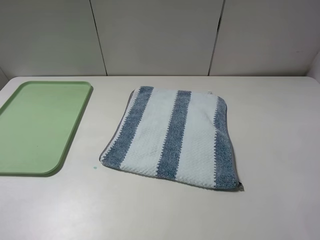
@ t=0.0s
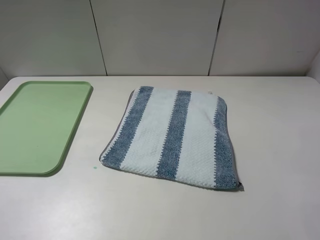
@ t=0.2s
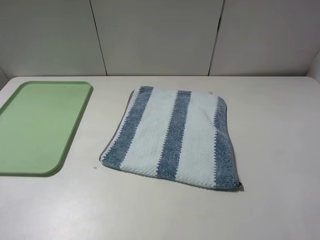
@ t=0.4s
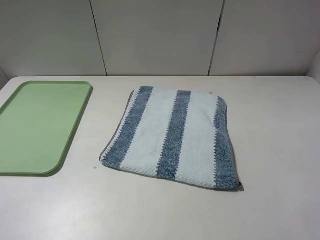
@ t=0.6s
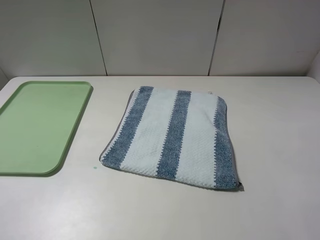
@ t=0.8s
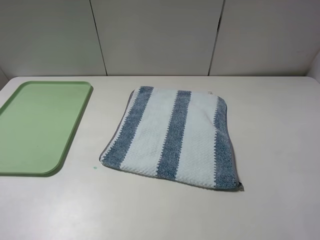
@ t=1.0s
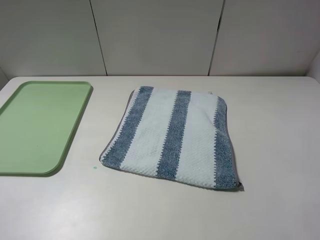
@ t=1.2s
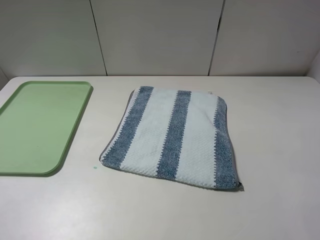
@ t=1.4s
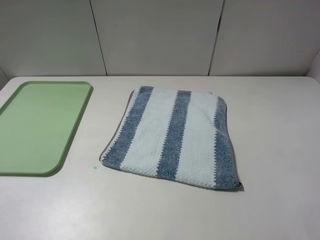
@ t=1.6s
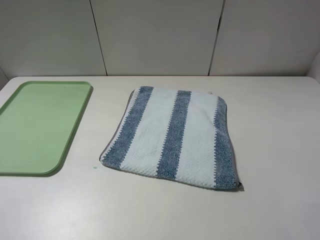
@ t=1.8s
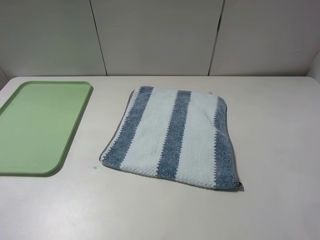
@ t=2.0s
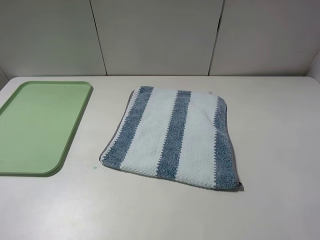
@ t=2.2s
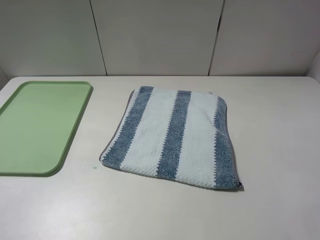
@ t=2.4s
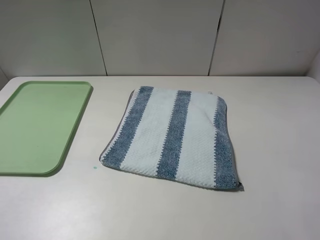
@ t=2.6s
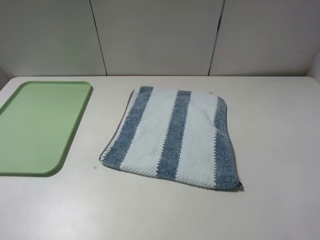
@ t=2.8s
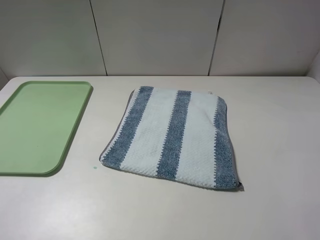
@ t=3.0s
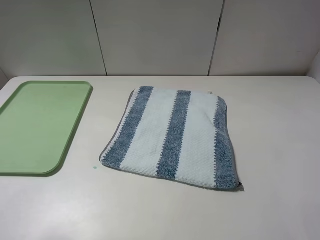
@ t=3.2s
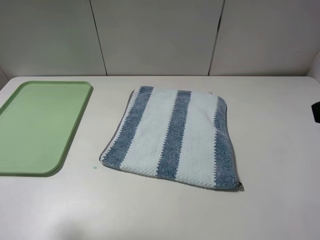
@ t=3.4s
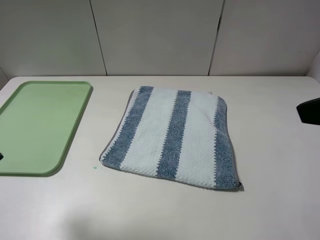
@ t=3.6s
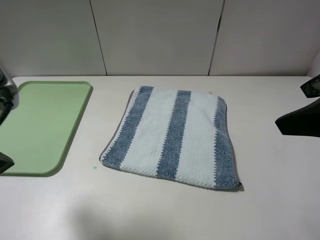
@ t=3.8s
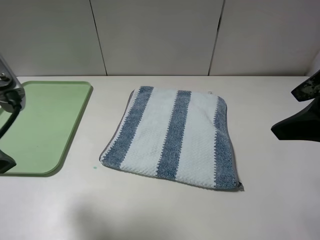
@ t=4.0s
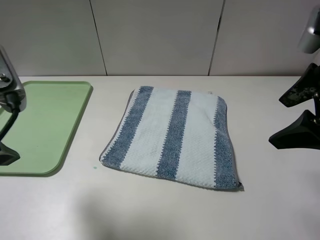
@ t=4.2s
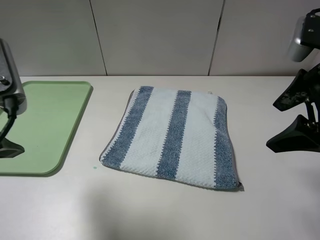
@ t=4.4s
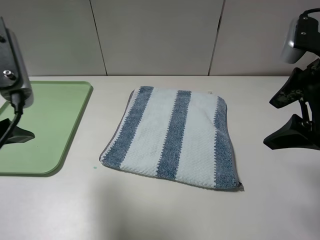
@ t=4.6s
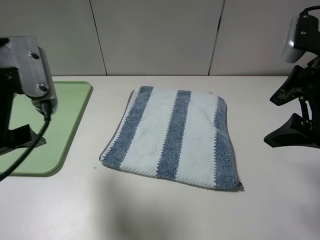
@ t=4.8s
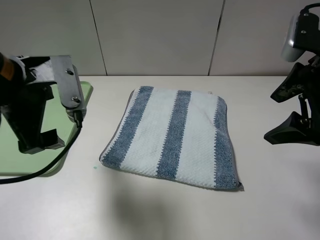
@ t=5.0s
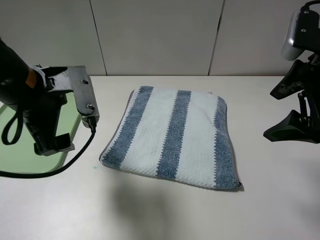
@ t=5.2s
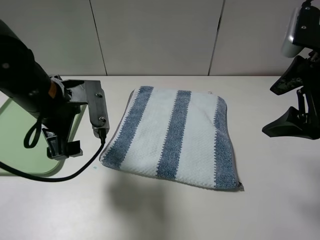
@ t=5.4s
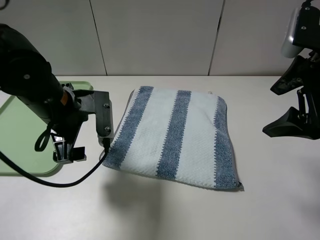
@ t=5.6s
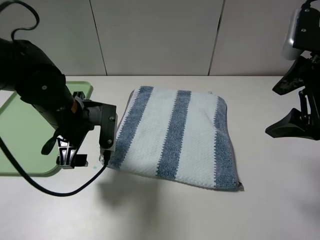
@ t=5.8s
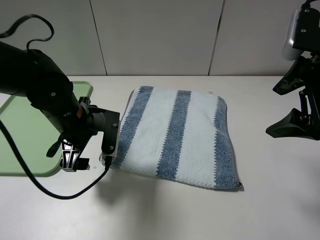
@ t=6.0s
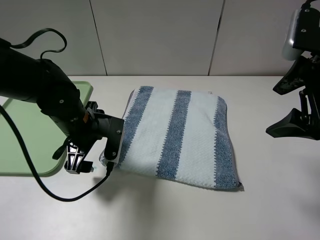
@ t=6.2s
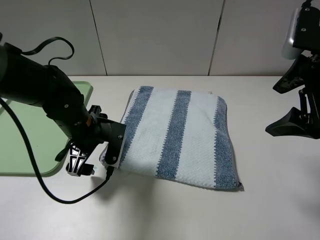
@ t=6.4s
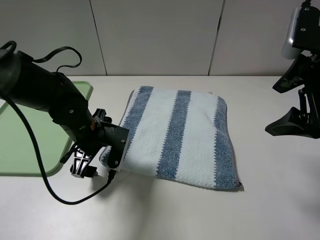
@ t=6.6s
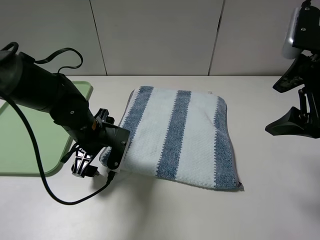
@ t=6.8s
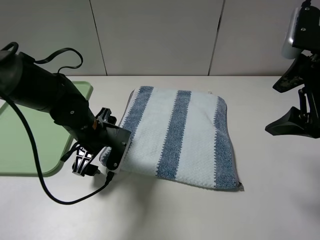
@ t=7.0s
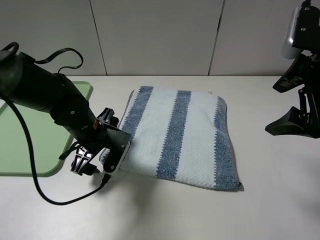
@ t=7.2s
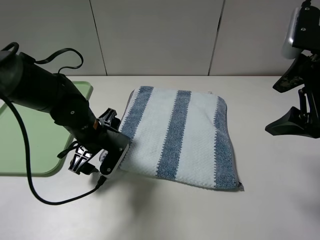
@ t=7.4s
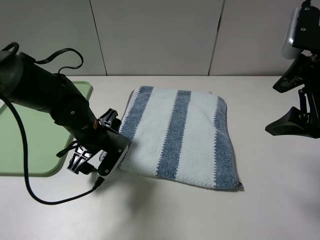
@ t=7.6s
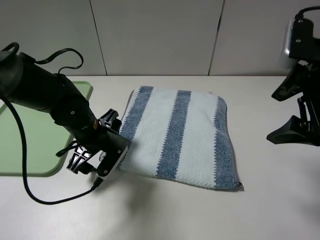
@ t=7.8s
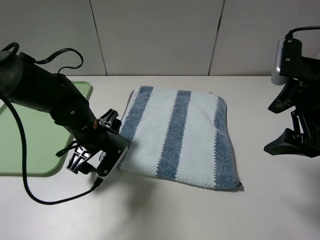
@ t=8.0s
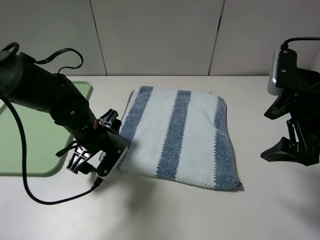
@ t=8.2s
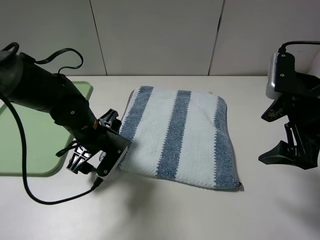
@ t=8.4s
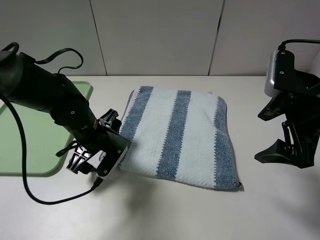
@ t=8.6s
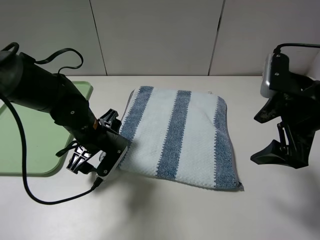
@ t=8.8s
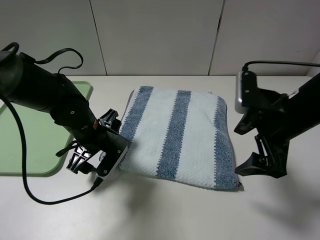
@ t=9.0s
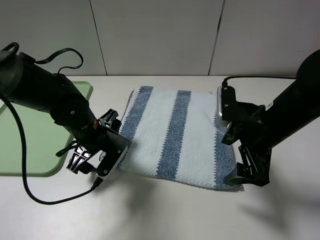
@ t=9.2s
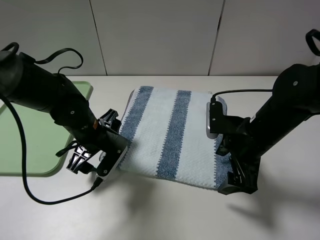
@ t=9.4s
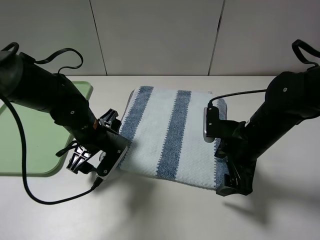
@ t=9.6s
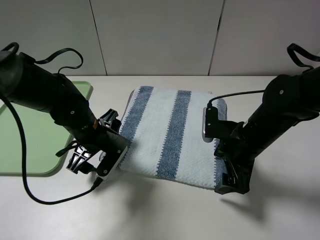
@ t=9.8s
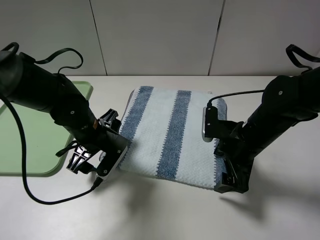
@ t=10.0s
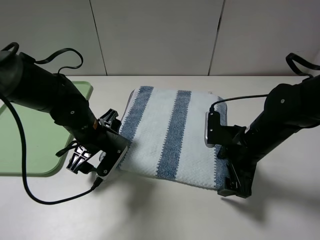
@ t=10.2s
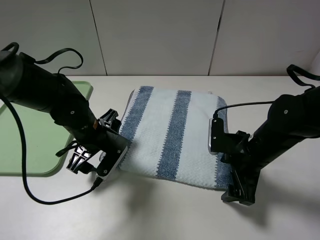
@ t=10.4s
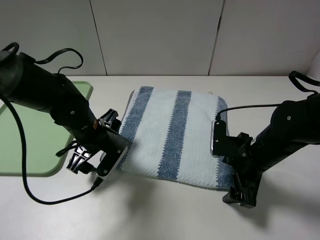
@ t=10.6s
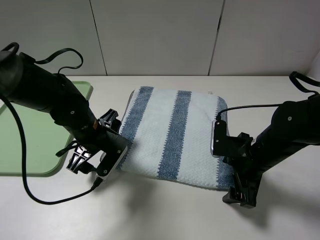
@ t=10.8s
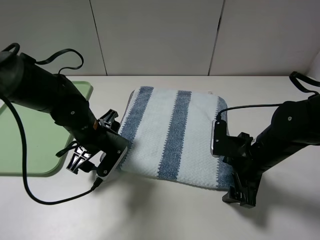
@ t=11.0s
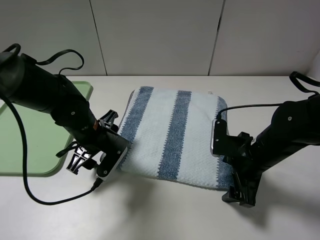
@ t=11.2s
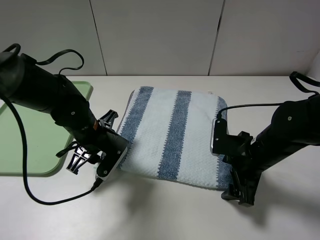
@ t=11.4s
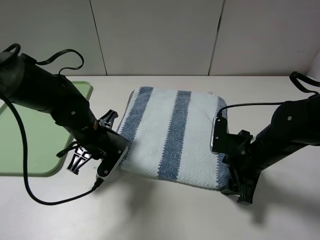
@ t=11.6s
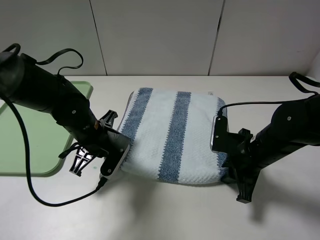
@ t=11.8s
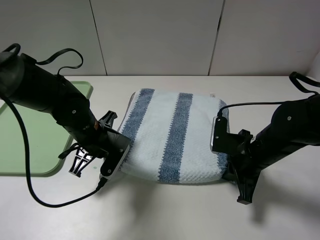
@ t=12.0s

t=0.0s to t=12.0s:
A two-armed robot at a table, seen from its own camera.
t=0.0s to t=1.6s: Neither gripper changes place.
t=3.0s to t=4.4s: The right gripper is displaced forward by some 15 cm. The left gripper shifts roughly 10 cm forward and to the right.
t=4.4s to t=6.0s: The left gripper travels downward, forward and to the right by roughly 20 cm.
t=7.6s to t=9.0s: The right gripper moves downward, some 10 cm.
t=9.0s to t=10.4s: The right gripper shifts about 10 cm downward.
t=10.4s to t=12.0s: The left gripper closes its fingers. The right gripper closes its fingers.

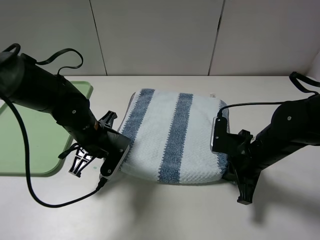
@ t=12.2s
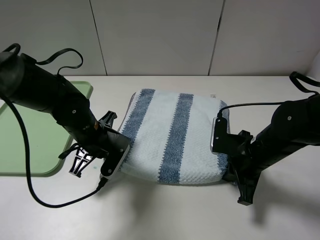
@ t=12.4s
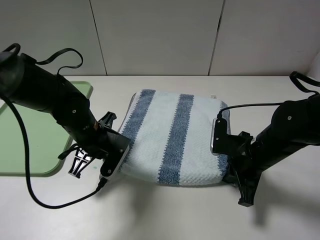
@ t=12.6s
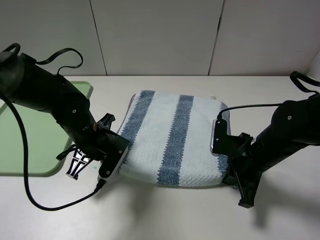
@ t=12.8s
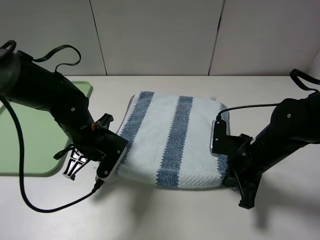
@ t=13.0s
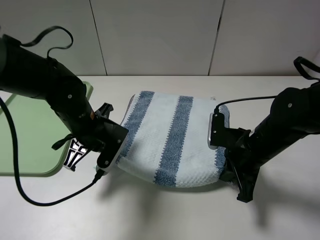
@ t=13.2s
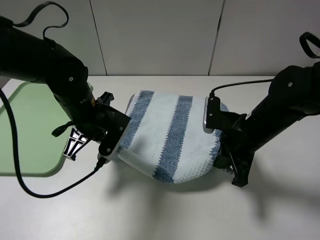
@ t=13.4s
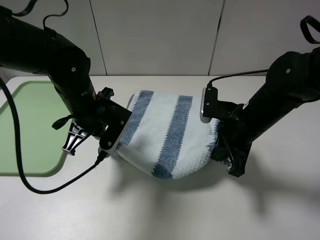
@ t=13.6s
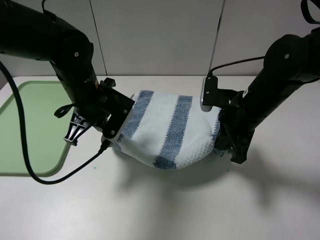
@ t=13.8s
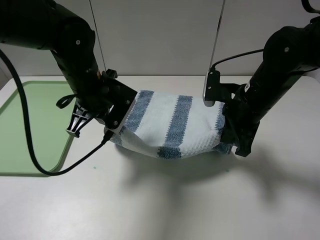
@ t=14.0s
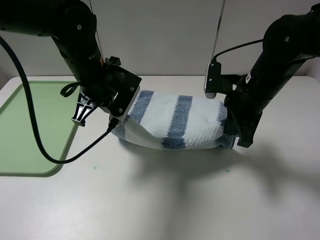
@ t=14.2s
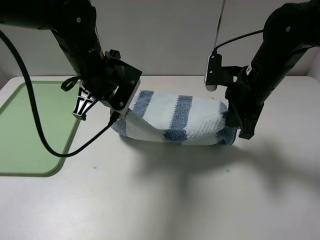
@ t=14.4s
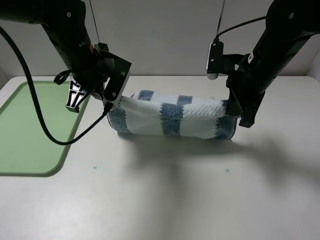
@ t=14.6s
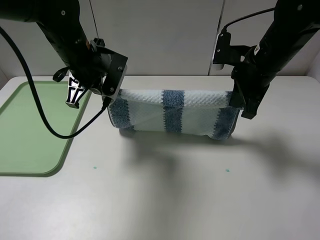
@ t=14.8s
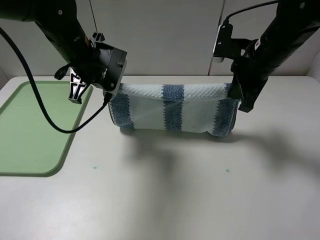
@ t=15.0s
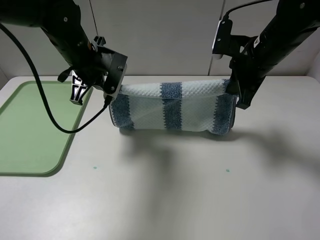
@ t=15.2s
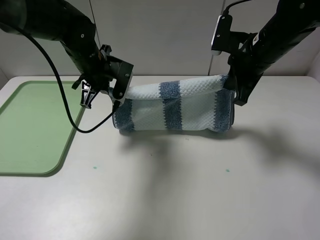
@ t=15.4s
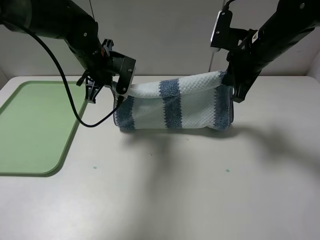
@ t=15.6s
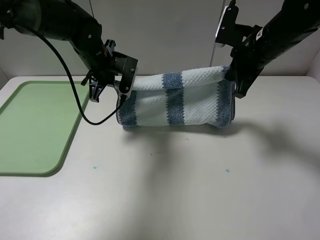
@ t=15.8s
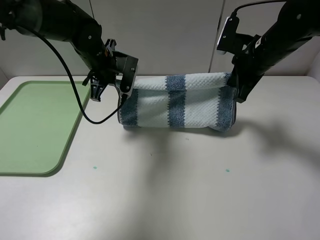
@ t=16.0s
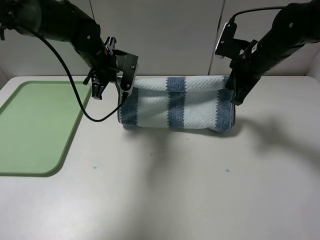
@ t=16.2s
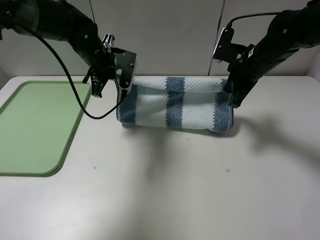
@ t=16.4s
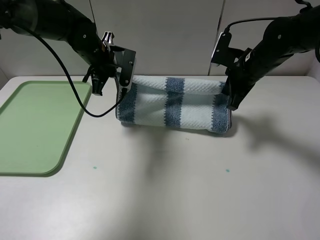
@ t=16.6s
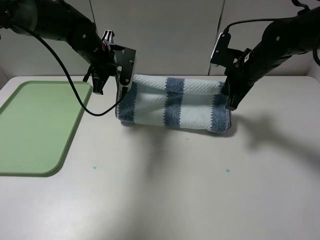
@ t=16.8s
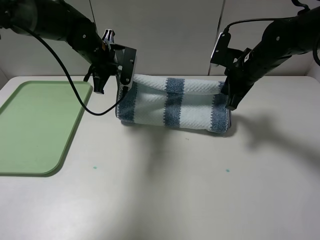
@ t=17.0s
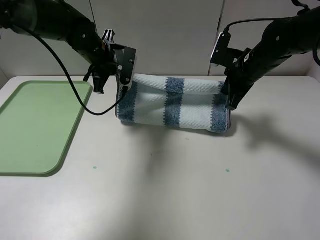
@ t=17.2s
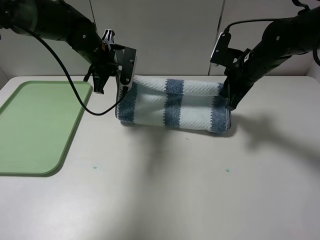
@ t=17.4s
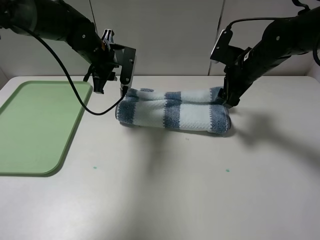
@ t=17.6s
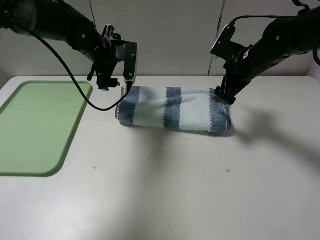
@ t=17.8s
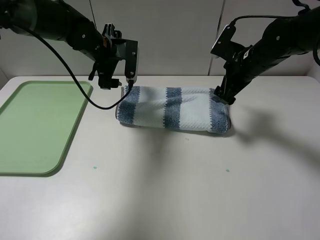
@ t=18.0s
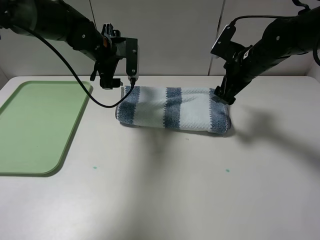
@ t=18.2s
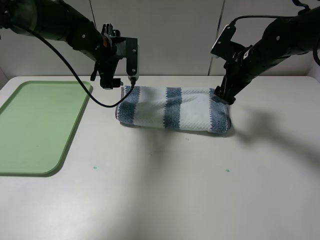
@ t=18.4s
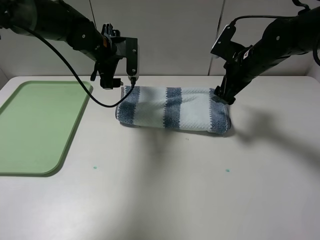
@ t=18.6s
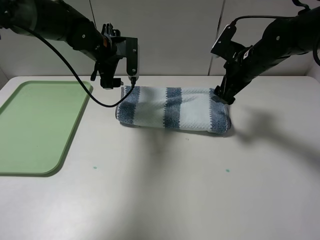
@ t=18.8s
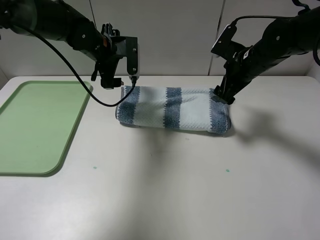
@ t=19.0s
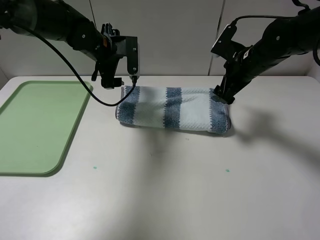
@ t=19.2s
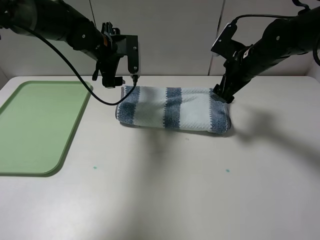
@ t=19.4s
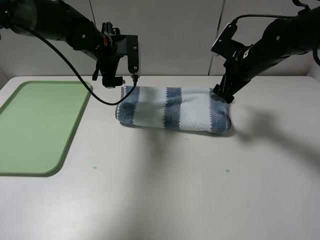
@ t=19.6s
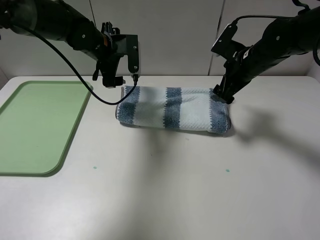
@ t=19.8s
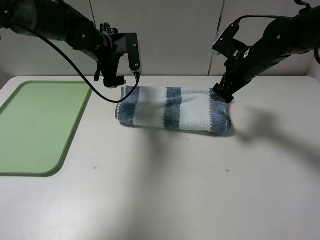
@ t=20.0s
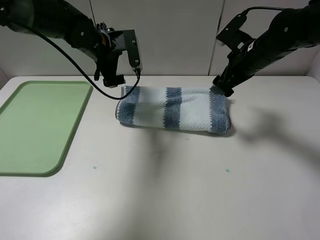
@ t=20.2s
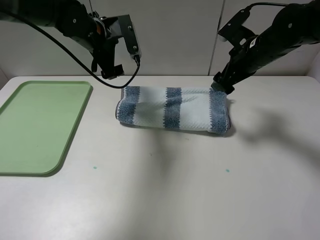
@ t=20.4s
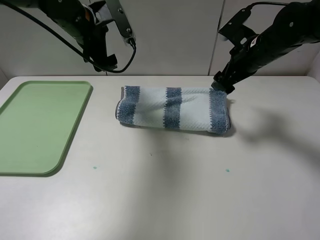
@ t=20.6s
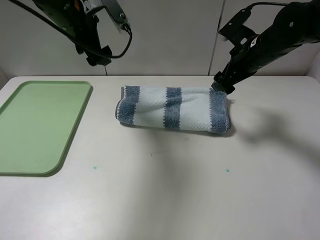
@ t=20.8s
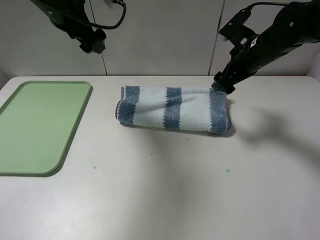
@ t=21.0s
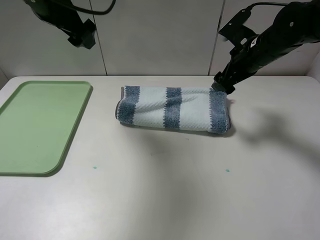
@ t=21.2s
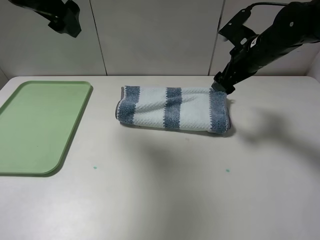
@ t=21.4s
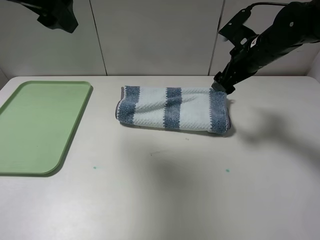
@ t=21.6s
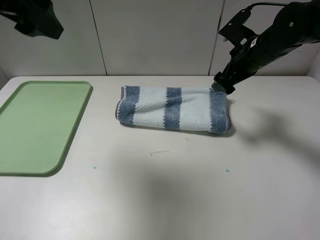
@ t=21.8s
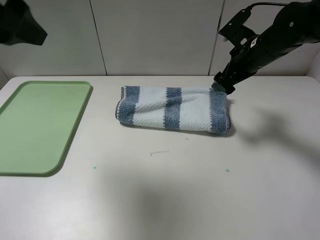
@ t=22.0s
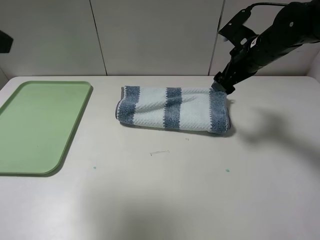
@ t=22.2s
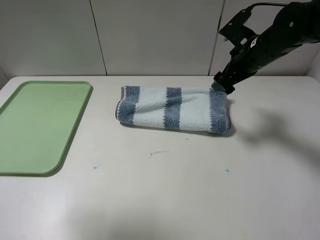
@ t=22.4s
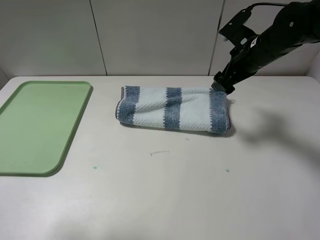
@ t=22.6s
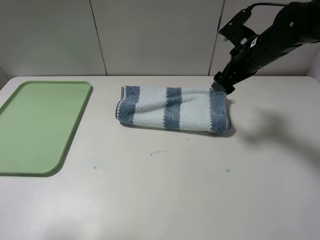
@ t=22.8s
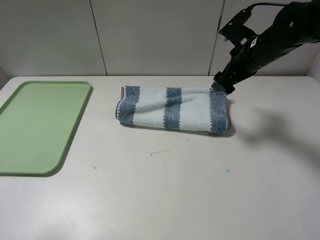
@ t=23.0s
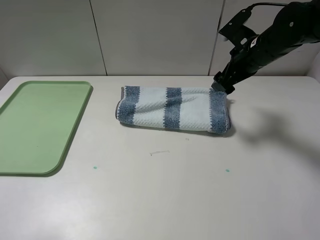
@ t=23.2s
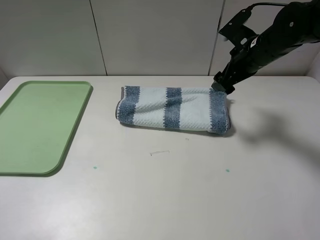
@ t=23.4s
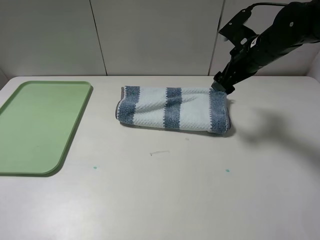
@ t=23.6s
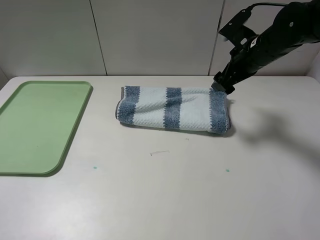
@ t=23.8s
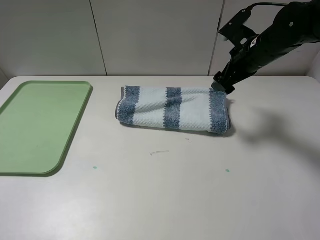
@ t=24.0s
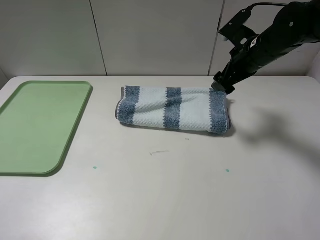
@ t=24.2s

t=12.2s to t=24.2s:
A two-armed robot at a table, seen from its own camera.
Step, t=12.4s to t=19.6s: Fold the blue white towel upwards with the left gripper.
t=12.2s to t=13.8s: The two grippers go about 10 cm upward.
t=13.8s to t=15.2s: The left gripper is displaced forward by approximately 5 cm. Meanwhile the right gripper is displaced upward and forward by about 10 cm.
t=15.2s to t=16.6s: The right gripper goes about 5 cm downward. Meanwhile the left gripper goes some 5 cm forward.
t=16.6s to t=18.2s: The left gripper opens. The right gripper opens up.
t=18.2s to t=19.8s: Neither gripper changes place.
t=19.8s to t=21.2s: The left gripper shifts some 15 cm upward and backward.
t=21.2s to t=22.6s: The left gripper goes about 30 cm backward and to the left.
t=22.6s to t=24.2s: The left gripper is displaced downward and backward by approximately 10 cm.
